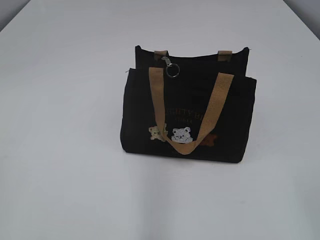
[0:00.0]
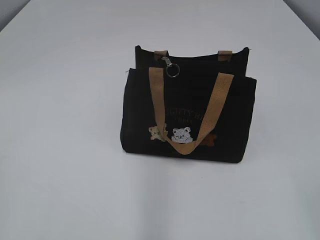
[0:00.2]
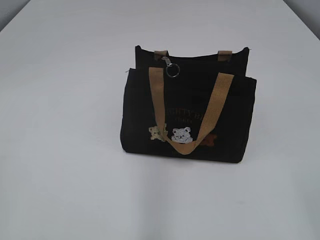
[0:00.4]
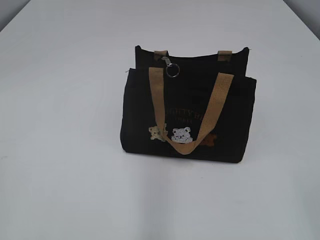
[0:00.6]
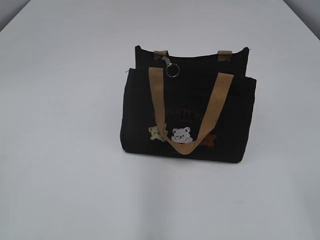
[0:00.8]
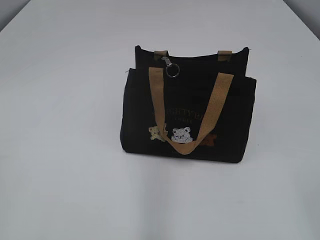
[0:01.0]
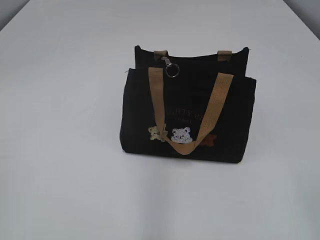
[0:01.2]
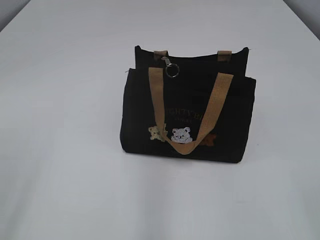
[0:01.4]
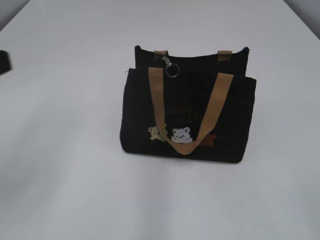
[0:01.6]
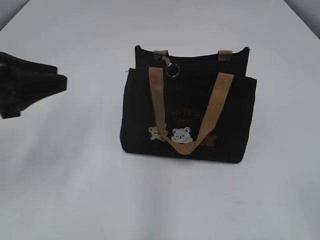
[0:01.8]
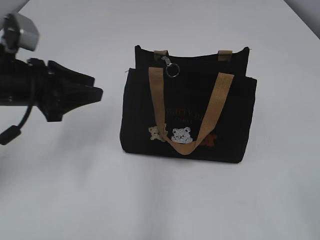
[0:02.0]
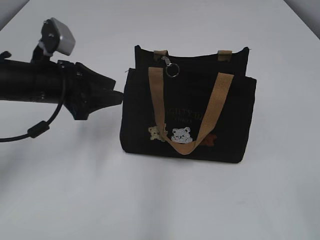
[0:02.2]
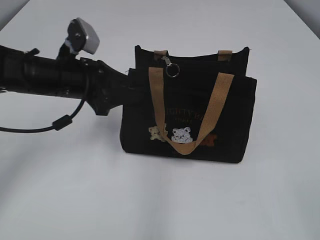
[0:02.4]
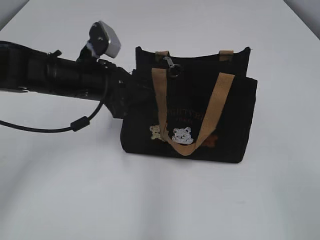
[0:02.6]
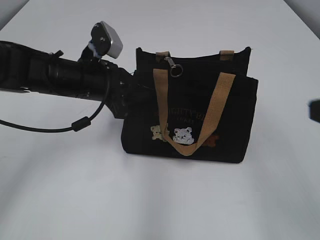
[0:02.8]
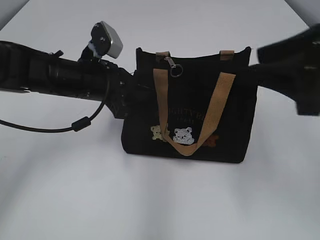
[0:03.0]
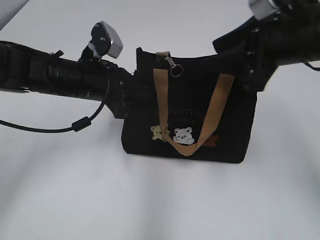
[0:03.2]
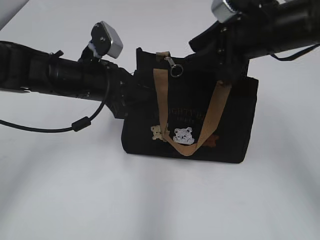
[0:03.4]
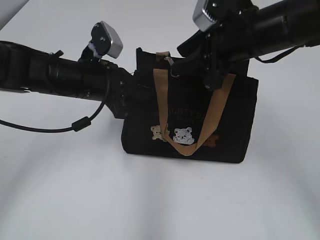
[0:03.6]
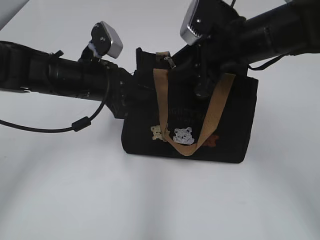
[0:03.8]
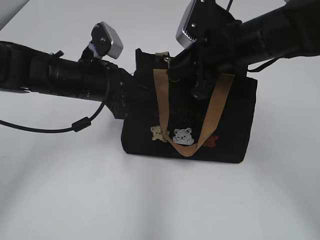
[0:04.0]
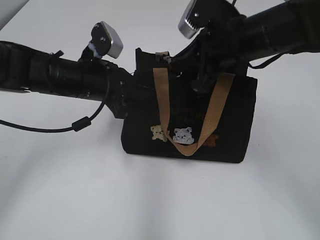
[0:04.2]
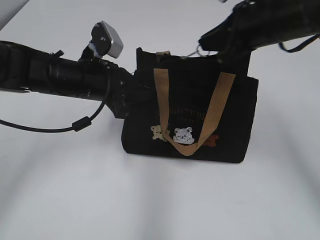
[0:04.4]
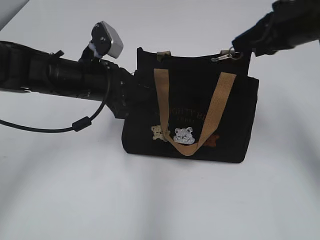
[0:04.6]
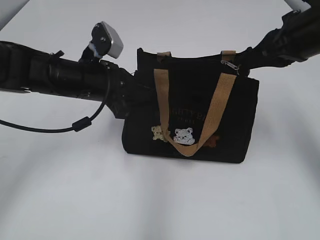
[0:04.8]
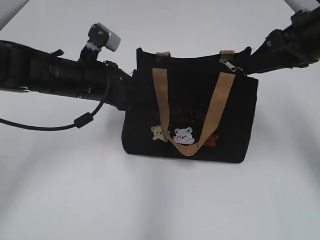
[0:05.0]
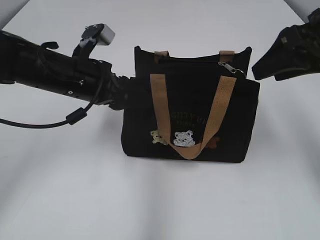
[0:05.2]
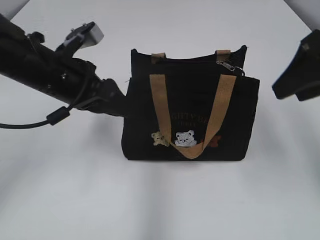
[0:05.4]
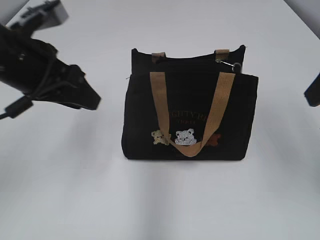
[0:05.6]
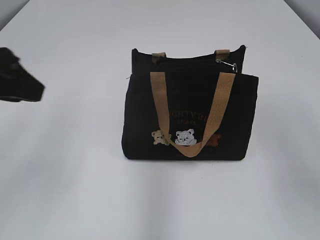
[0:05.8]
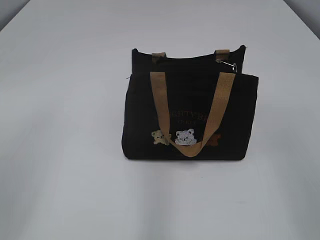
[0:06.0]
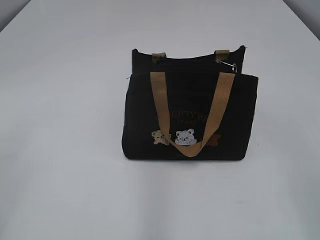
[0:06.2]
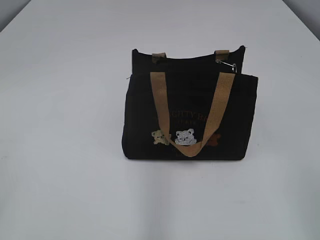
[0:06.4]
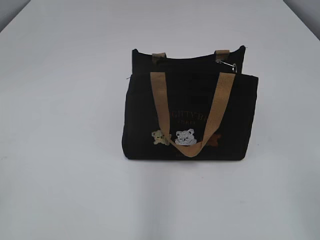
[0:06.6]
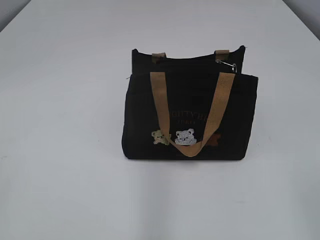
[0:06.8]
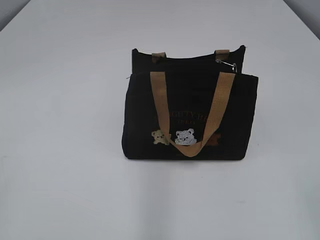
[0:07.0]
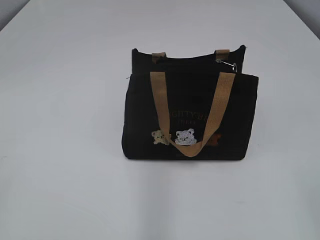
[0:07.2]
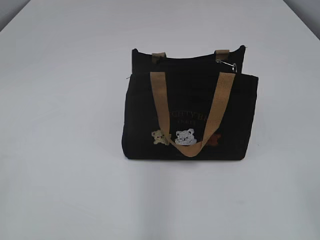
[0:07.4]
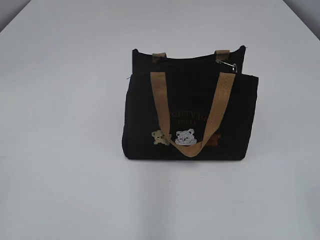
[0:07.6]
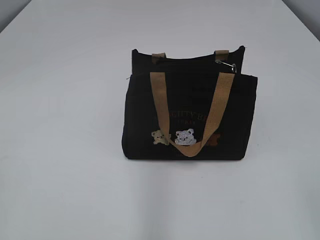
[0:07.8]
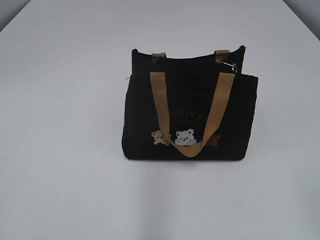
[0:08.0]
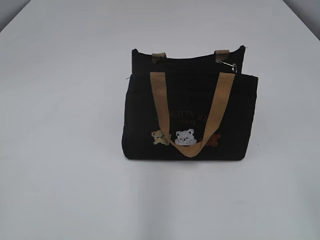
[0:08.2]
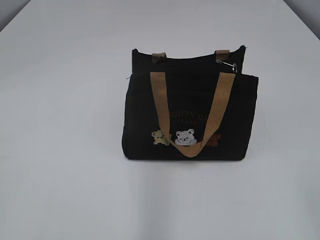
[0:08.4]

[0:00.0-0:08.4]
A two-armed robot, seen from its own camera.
Step, 0:00.0 to 0:04.8: Pull open the zipper with your right hand.
Step, 0:05.0 to 0:05.4: Hold the bag with your left hand.
0:01.4 to 0:02.8: The right gripper heads forward, covering roughly 10 cm. Meanwhile the left gripper is displaced forward, to the right and downward by approximately 35 cm, and closes its fingers.
0:02.8 to 0:04.2: The right gripper heads forward and to the left, covering roughly 25 cm, and closes up.
0:04.2 to 0:05.6: The right gripper travels to the right, backward and upward by about 20 cm, and opens. Meanwhile the left gripper travels upward and backward by about 10 cm, and opens its fingers.
0:05.6 to 0:07.0: The left gripper is displaced backward and to the left by approximately 30 cm. The right gripper travels backward by approximately 25 cm.

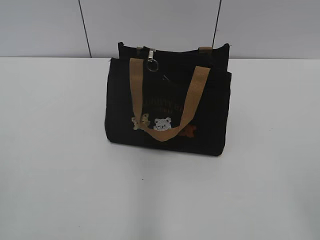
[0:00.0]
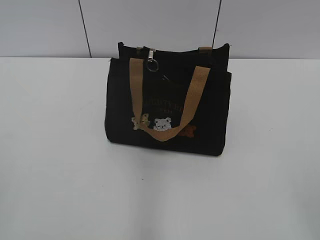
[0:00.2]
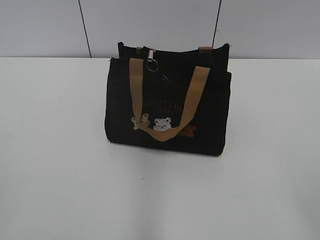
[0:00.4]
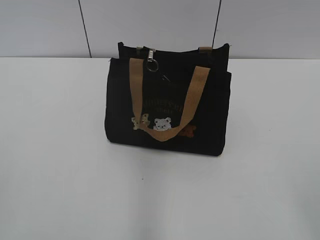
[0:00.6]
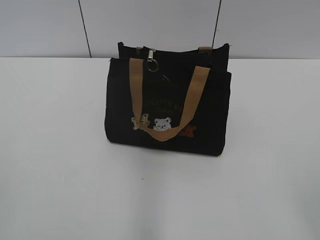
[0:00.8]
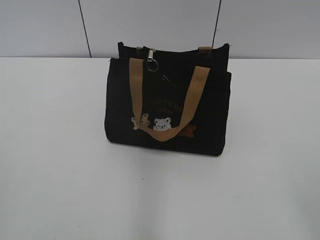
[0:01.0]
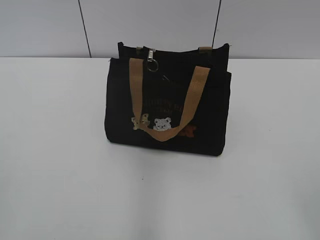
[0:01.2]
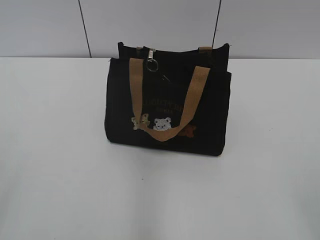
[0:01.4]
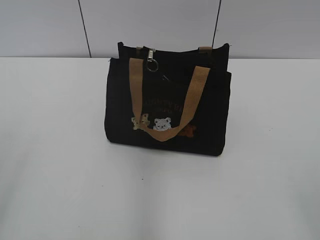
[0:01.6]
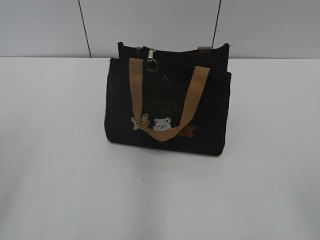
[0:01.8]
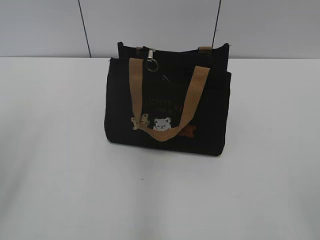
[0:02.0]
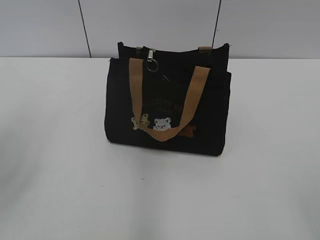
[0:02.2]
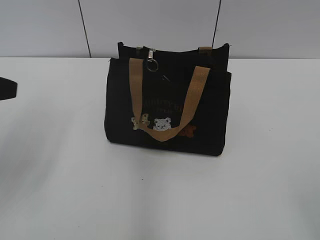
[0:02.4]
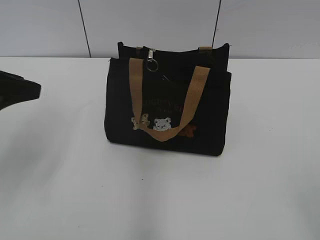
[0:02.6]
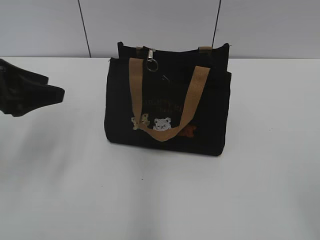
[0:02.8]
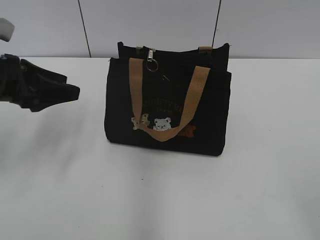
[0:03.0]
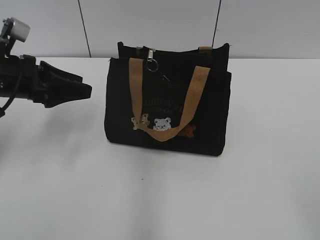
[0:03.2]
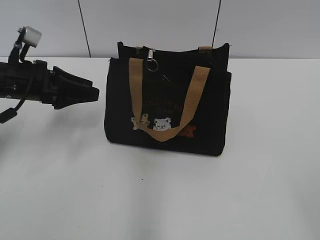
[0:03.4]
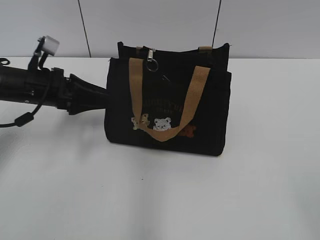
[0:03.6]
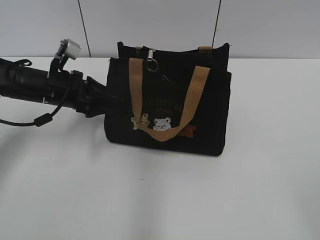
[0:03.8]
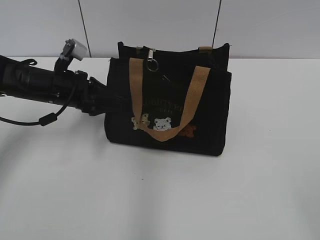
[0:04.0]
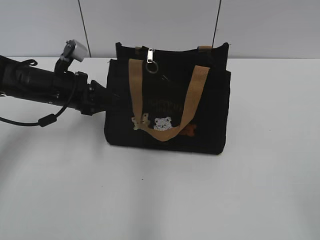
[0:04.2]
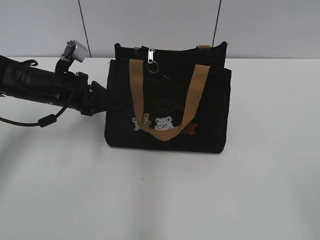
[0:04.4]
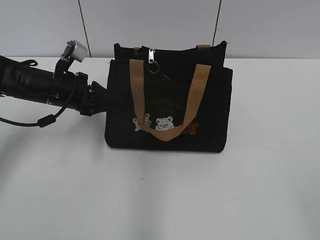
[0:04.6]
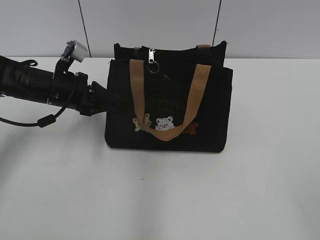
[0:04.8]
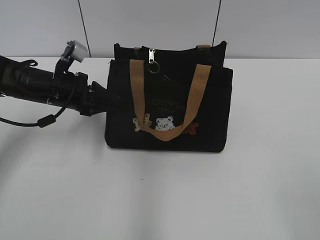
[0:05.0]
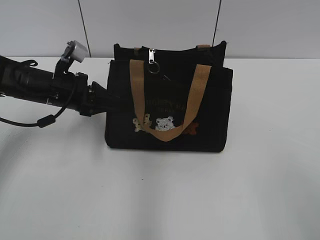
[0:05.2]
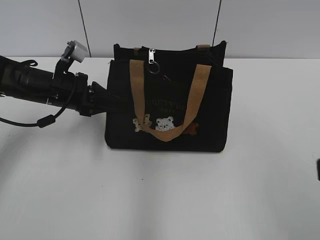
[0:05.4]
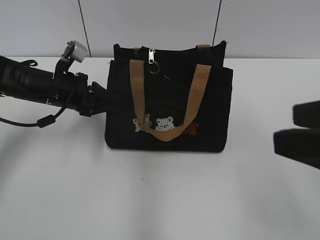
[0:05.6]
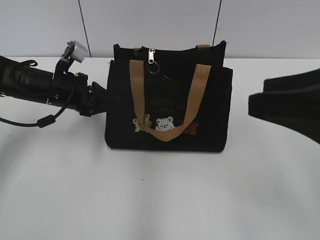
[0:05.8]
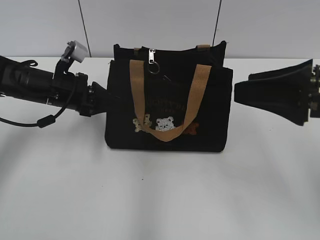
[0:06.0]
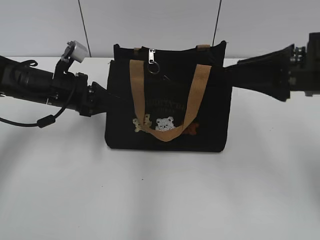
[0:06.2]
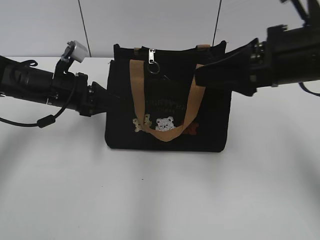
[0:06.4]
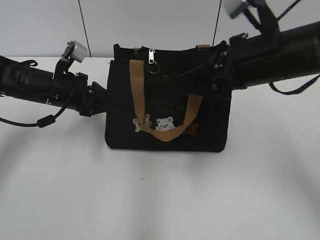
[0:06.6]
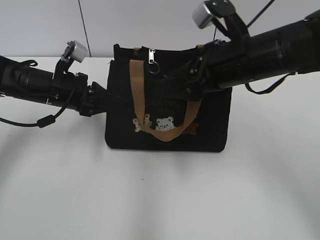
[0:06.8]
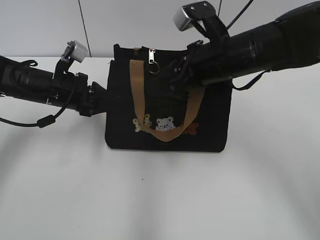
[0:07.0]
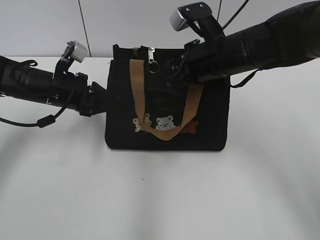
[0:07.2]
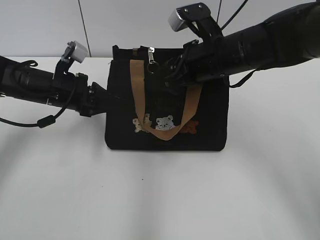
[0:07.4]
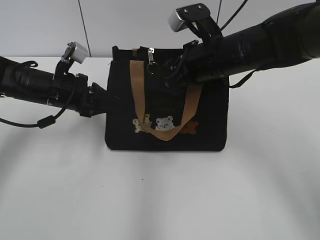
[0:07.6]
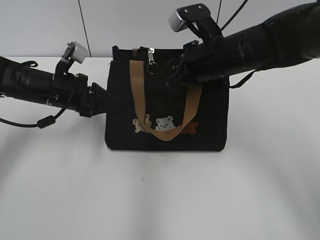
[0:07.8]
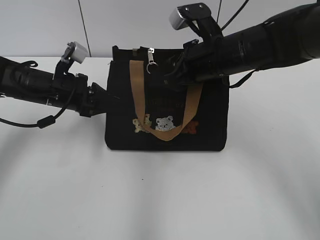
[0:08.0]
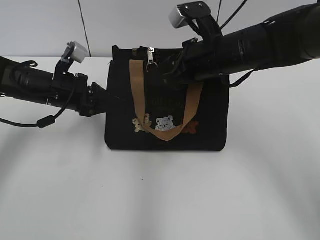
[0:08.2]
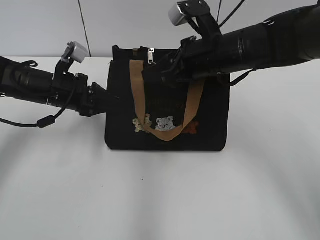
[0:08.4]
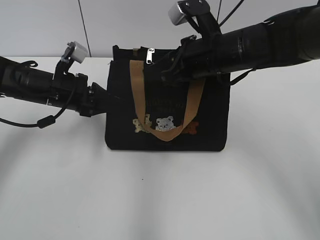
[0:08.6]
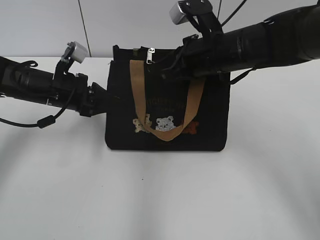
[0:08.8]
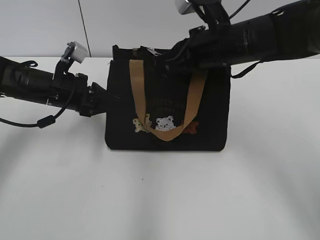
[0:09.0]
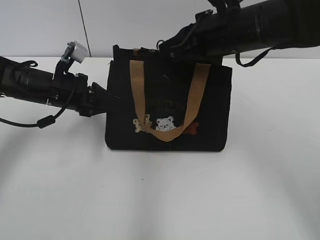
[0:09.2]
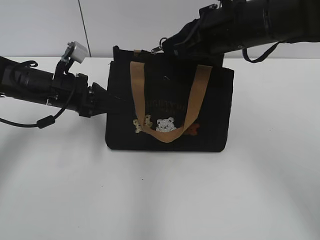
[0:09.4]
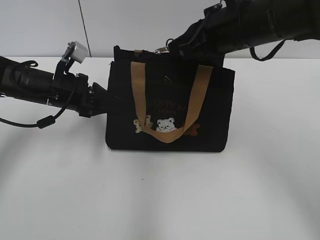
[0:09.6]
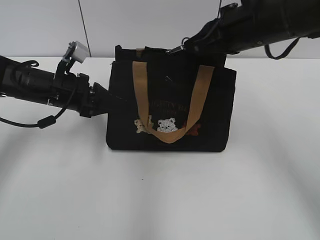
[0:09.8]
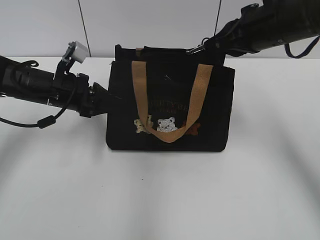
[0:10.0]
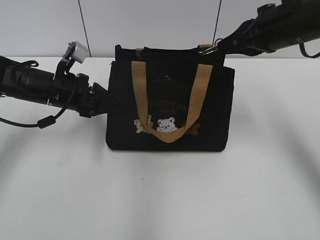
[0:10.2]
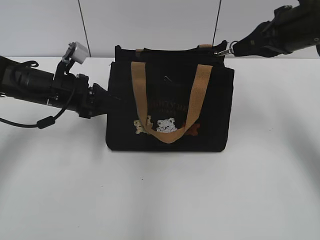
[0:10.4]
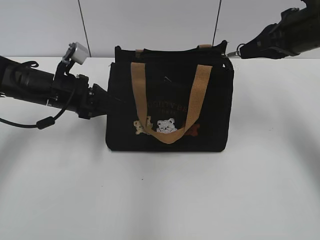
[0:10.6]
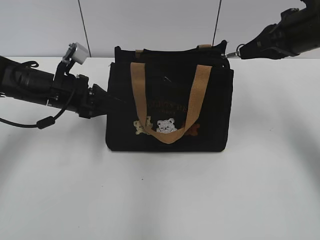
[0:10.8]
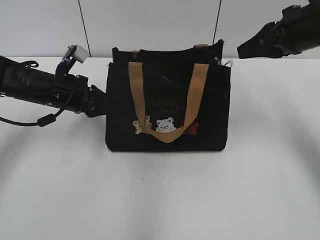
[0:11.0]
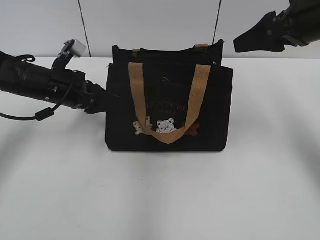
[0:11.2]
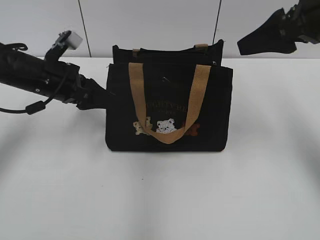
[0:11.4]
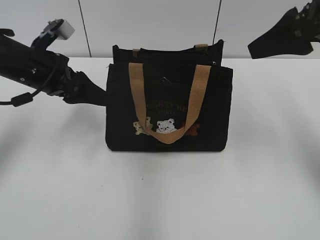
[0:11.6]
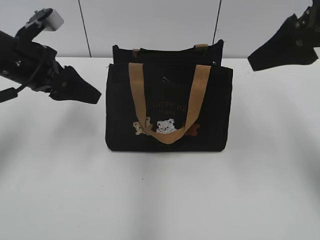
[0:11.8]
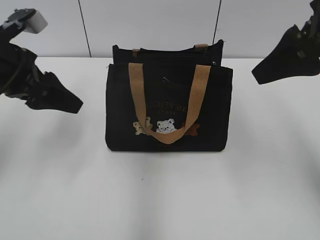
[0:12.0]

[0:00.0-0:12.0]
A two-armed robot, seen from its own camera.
Step, 0:00.0 to 0:10.8: Pull open the zipper with your right hand.
Step, 0:11.0 to 0:11.6: Hold the bag with your left hand.
0:01.6 to 0:03.0: The left gripper travels forward by some 25 cm.
0:03.0 to 0:04.4: The left gripper heads forward, downward and to the right, covering approximately 20 cm.
0:04.4 to 0:06.0: The left gripper closes its fingers, while the right gripper heads forward and to the left, covering roughly 15 cm.
0:06.0 to 0:07.6: The right gripper travels forward and to the left by approximately 25 cm.
0:07.6 to 0:09.0: The right gripper closes its fingers.
0:09.0 to 0:10.4: The right gripper goes about 10 cm to the right and upward.
0:10.4 to 0:12.0: The left gripper moves upward, roughly 5 cm, and opens up, while the right gripper moves backward and upward, approximately 10 cm, and opens up.

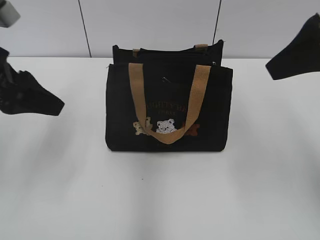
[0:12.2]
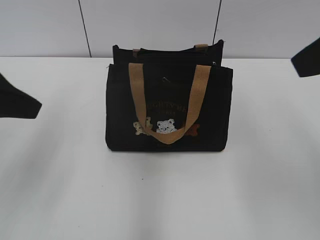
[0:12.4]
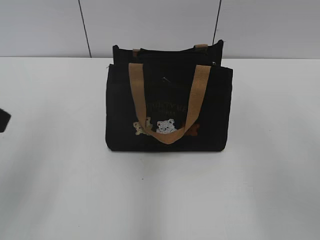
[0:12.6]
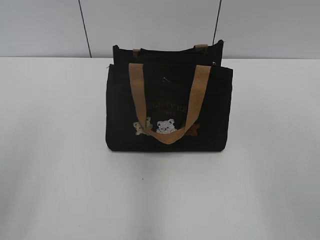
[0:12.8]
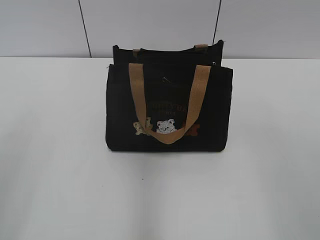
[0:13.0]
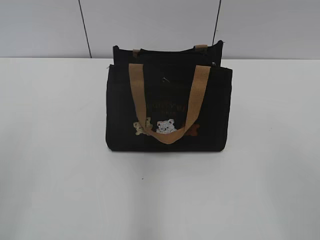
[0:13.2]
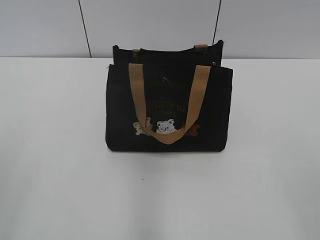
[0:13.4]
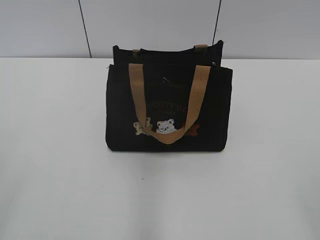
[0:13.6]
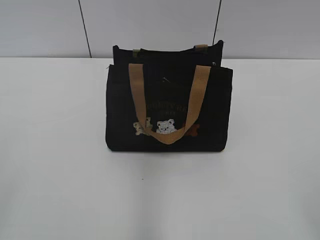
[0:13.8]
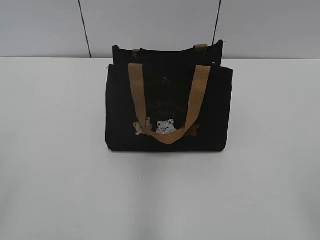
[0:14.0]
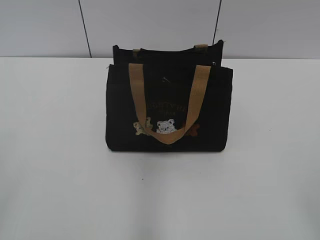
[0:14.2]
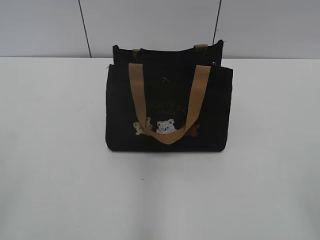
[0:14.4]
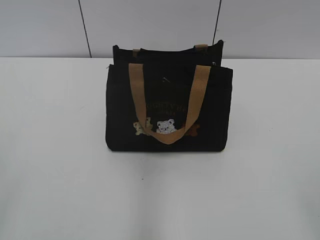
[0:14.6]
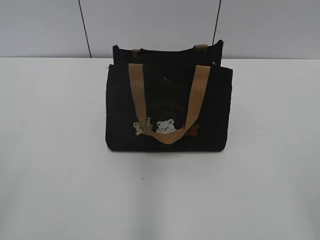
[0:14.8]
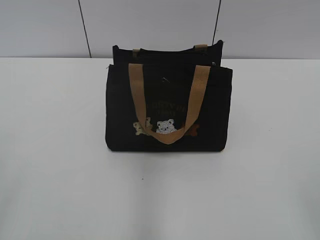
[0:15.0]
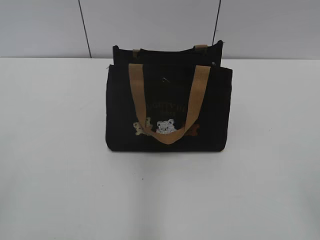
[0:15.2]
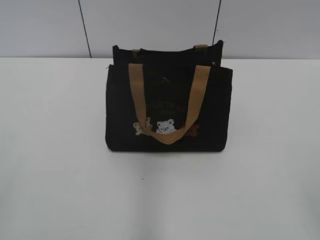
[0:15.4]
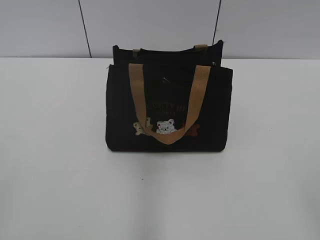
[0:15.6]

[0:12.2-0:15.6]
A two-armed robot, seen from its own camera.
0:12.2 to 0:13.8: Both grippers travel together backward, approximately 30 cm.
